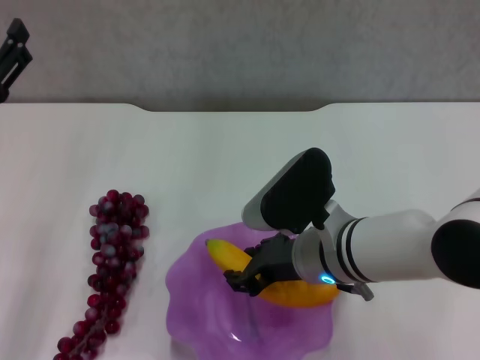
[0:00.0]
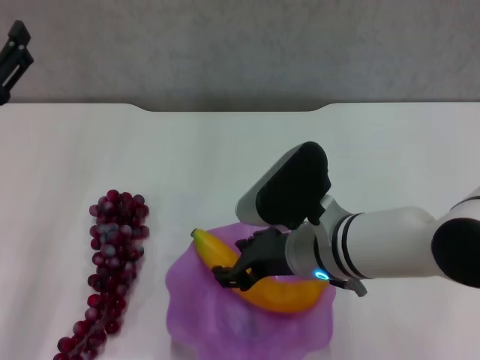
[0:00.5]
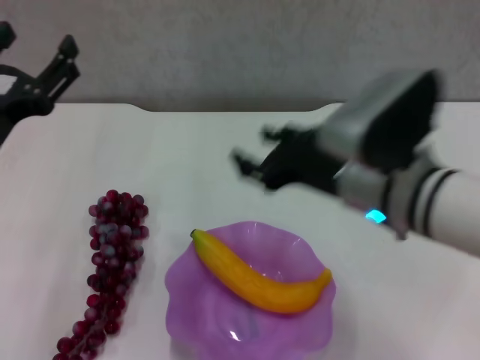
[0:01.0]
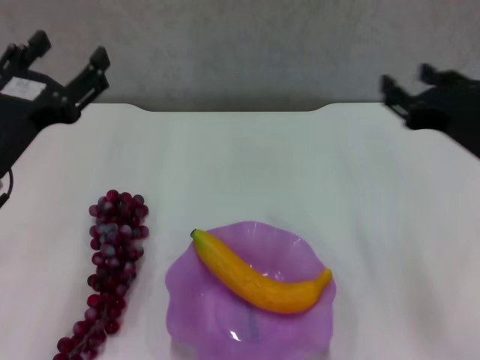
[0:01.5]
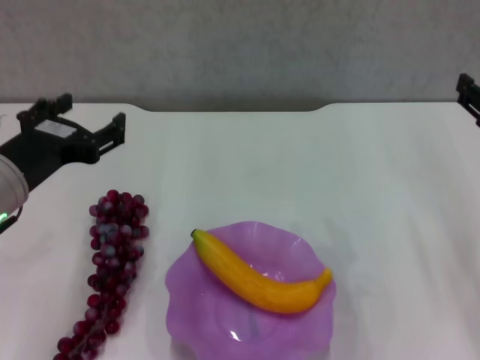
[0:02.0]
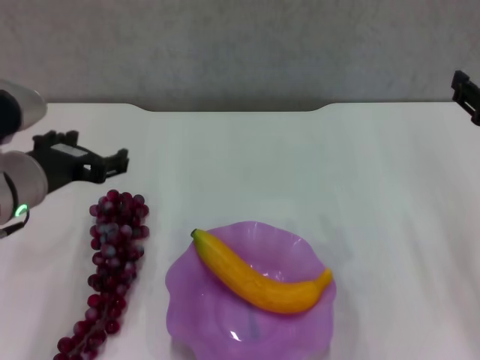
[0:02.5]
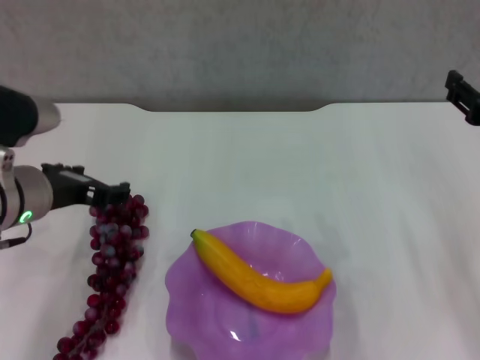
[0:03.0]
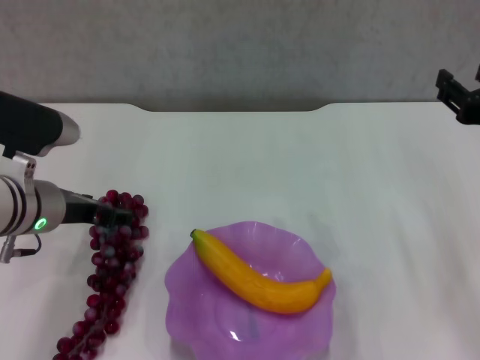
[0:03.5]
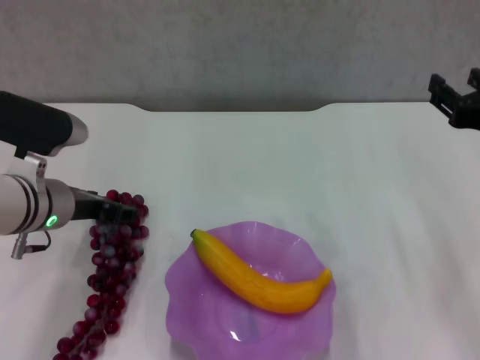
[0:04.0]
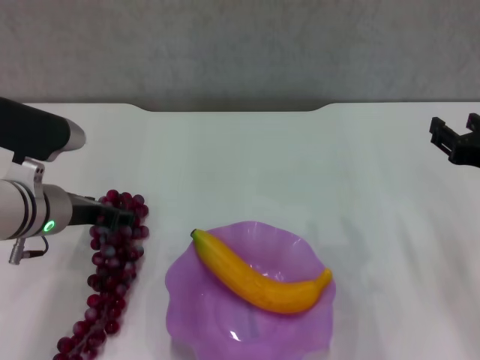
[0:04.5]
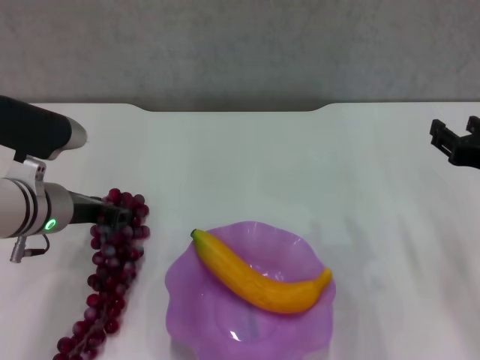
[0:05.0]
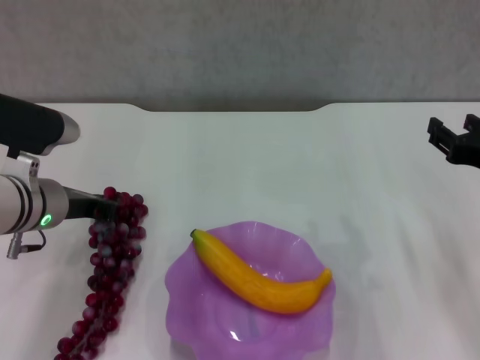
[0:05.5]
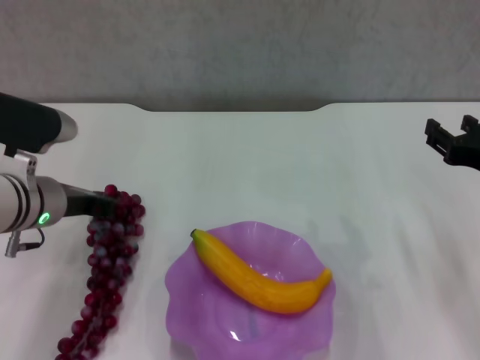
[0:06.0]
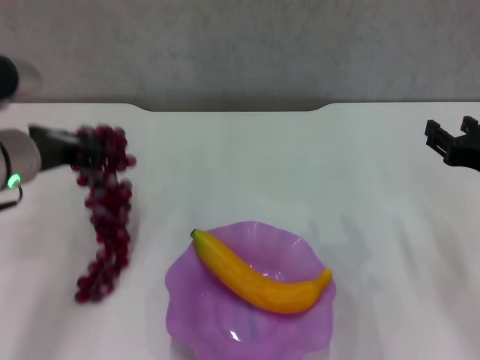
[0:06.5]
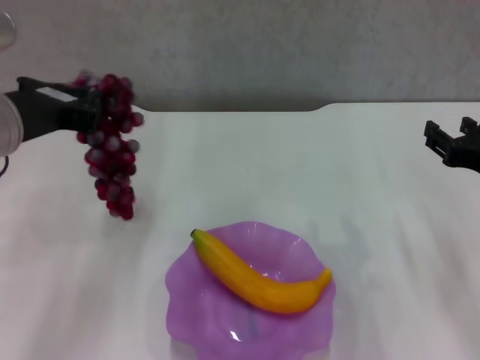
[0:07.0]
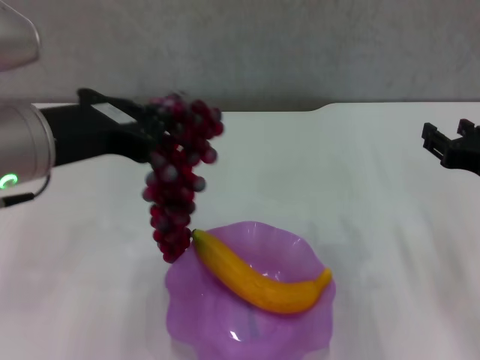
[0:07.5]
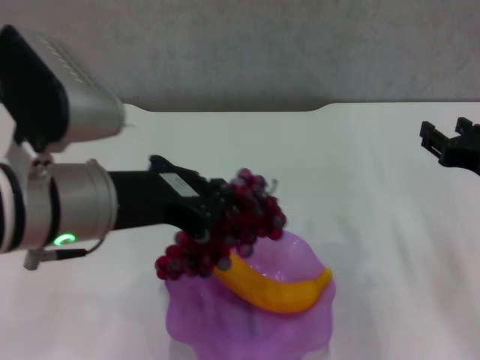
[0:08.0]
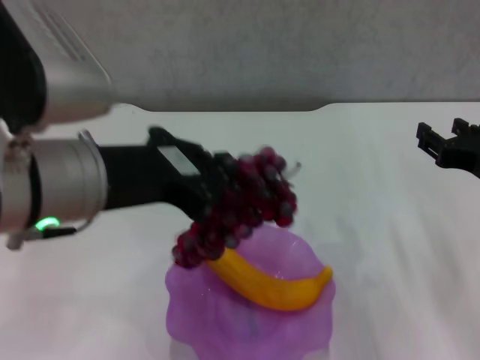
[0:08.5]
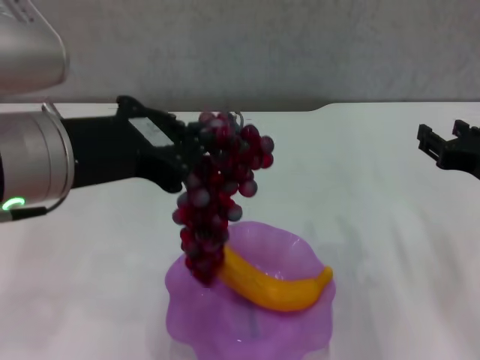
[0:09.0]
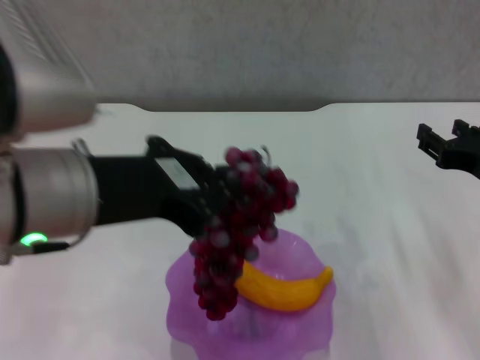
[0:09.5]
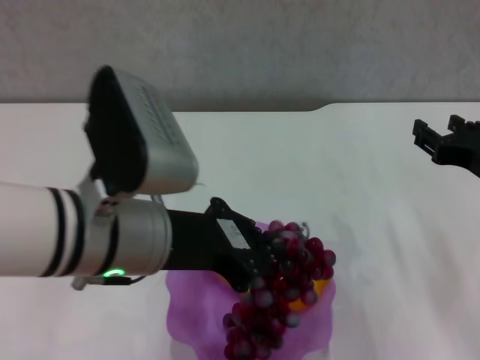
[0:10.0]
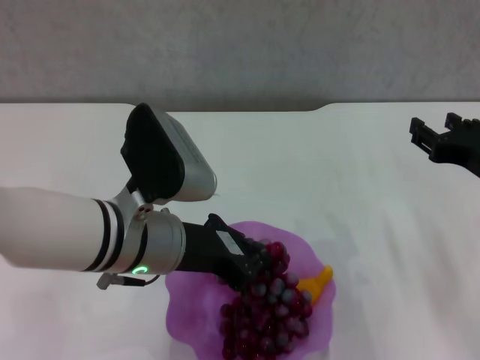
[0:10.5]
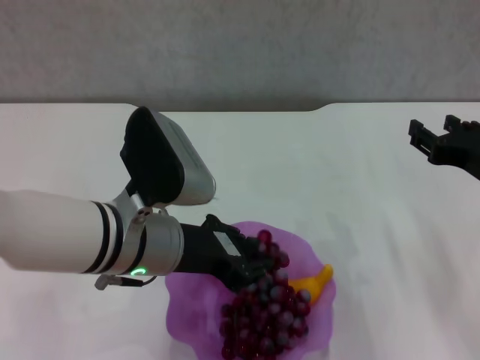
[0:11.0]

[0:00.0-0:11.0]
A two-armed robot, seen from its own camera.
Step, 0:01.0 to 0:05.5: Grasp the grape with left gripper.
0:00.0 to 0:02.0: The right gripper travels to the right and upward by roughly 20 cm. Meanwhile the left gripper ends up some 5 cm from where it was.
0:02.0 to 0:03.5: The left gripper shifts about 5 cm forward.
0:03.5 to 0:05.5: The left gripper closes.
0:05.5 to 0:07.5: The left gripper travels upward and backward by approximately 15 cm.
0:07.5 to 0:09.0: The grippers stay close to where they were, moving slightly.
0:09.0 to 0:11.0: The left gripper travels downward and to the right by approximately 15 cm.

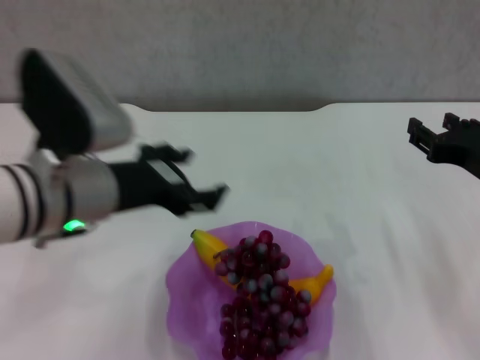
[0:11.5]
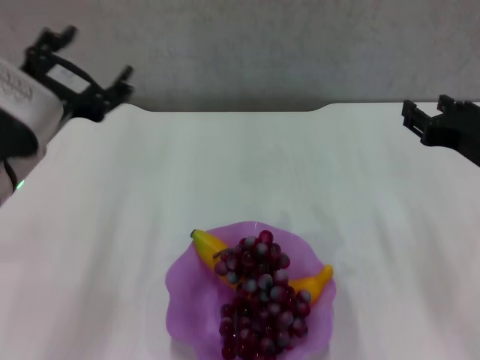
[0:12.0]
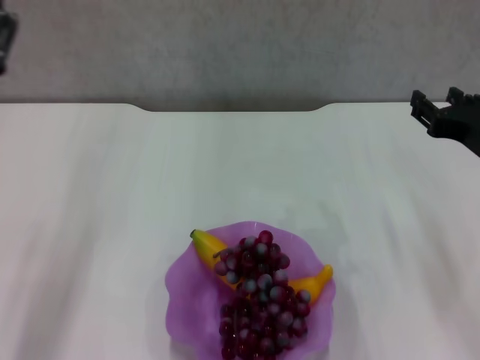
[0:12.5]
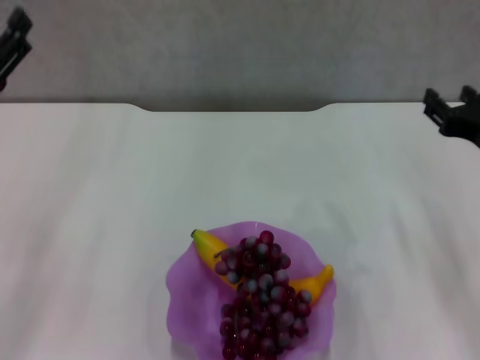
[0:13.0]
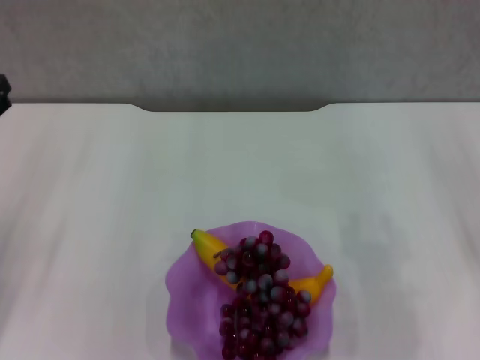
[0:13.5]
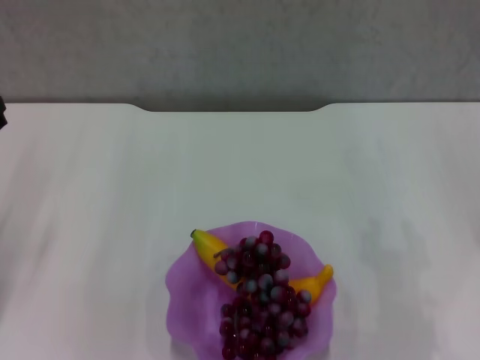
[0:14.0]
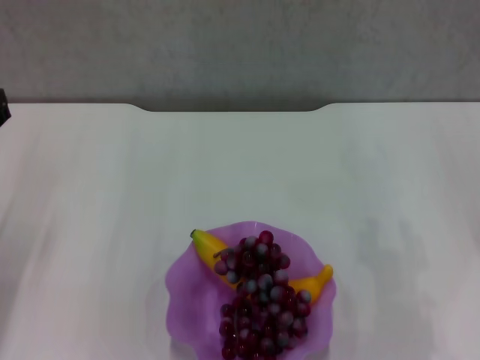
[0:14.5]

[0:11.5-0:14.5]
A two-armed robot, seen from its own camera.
0:11.5 to 0:13.0: The left gripper travels to the left by roughly 10 cm.
0:13.0 to 0:14.5: The right gripper shifts about 5 cm to the right.
